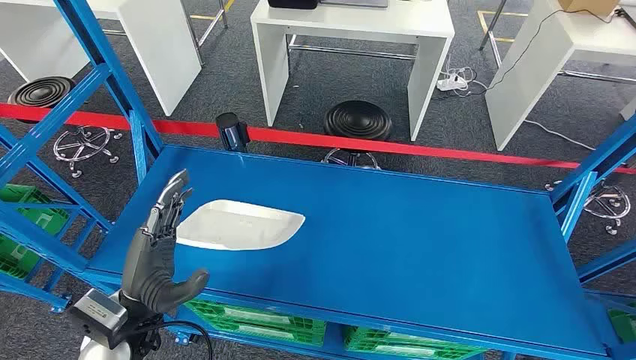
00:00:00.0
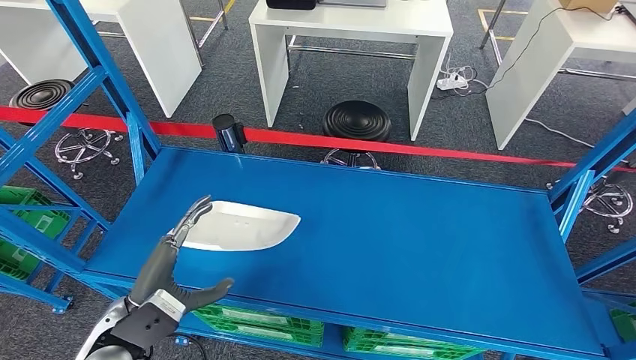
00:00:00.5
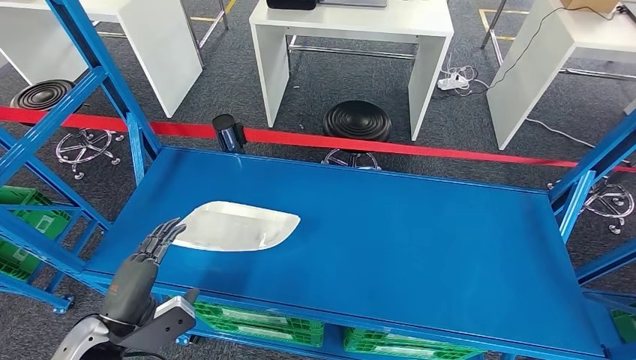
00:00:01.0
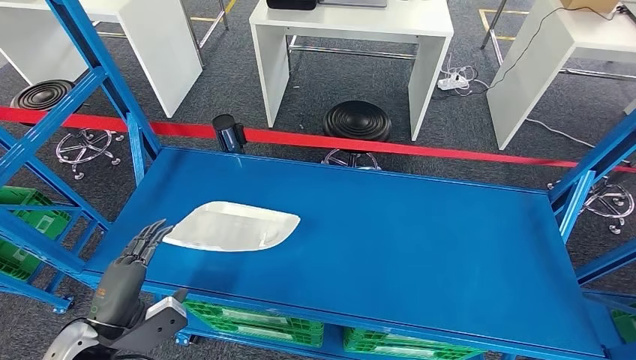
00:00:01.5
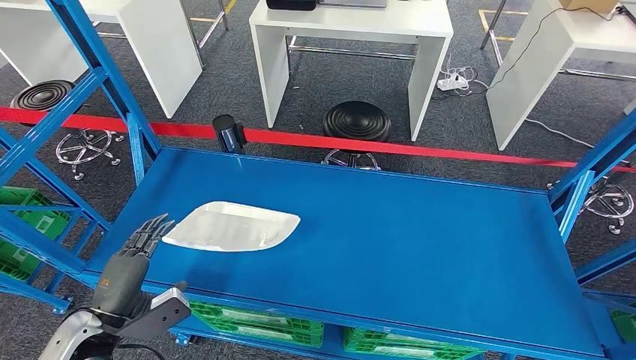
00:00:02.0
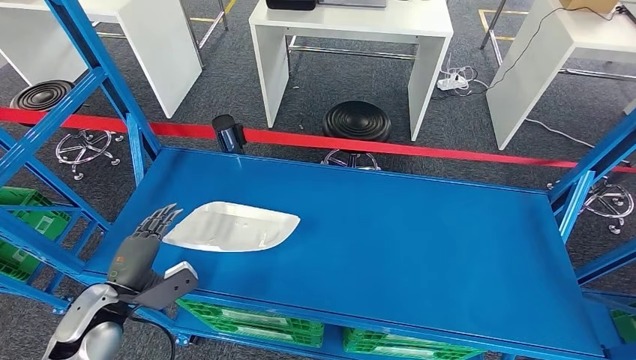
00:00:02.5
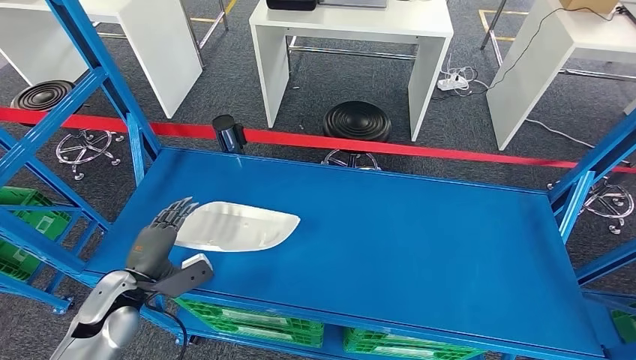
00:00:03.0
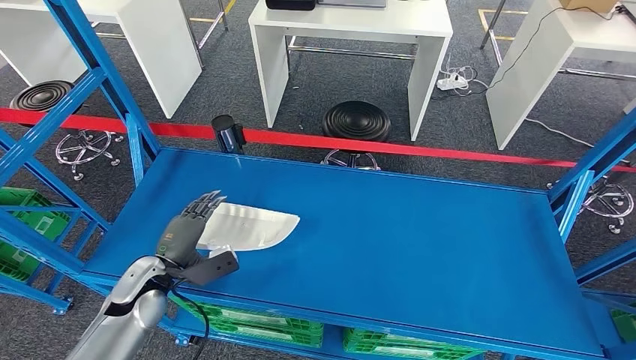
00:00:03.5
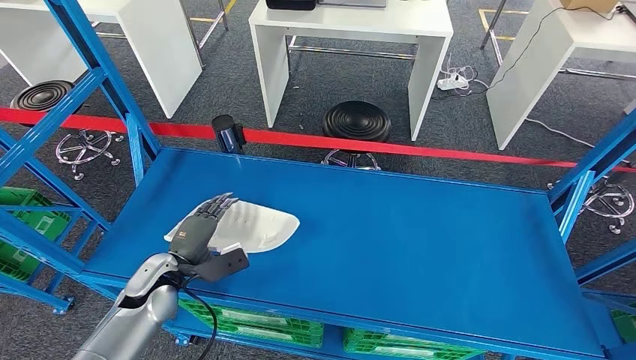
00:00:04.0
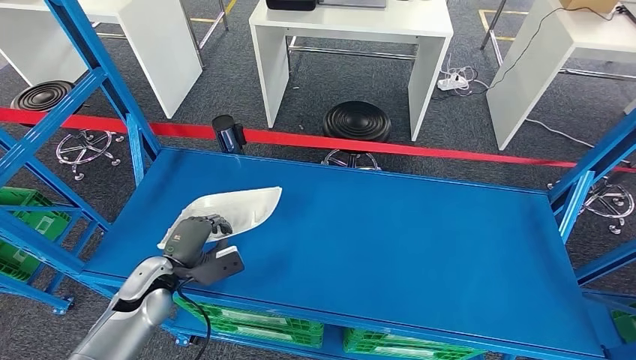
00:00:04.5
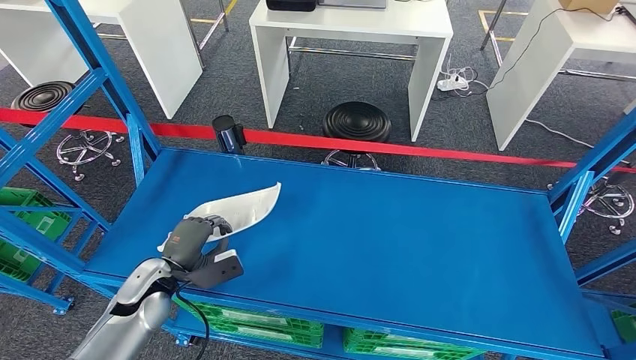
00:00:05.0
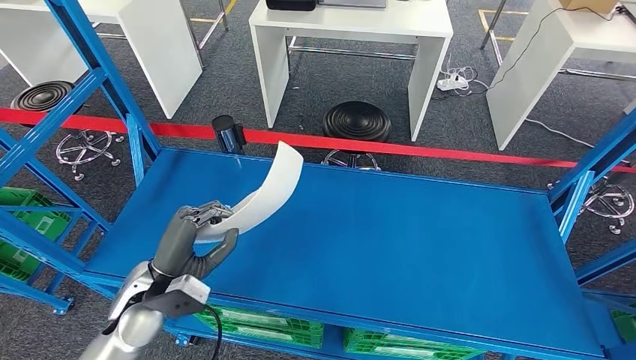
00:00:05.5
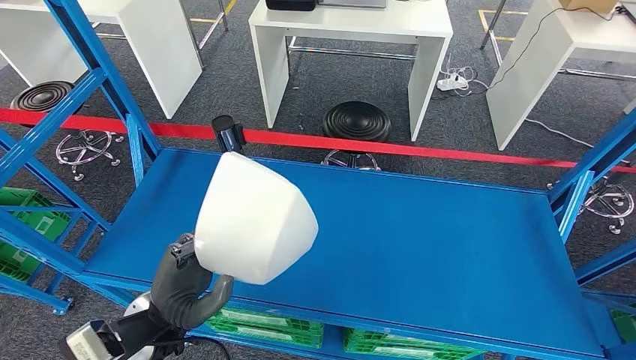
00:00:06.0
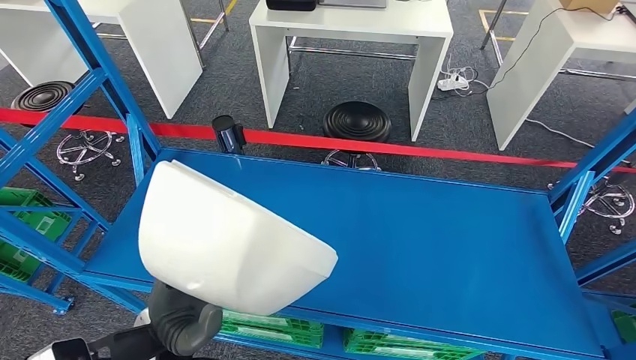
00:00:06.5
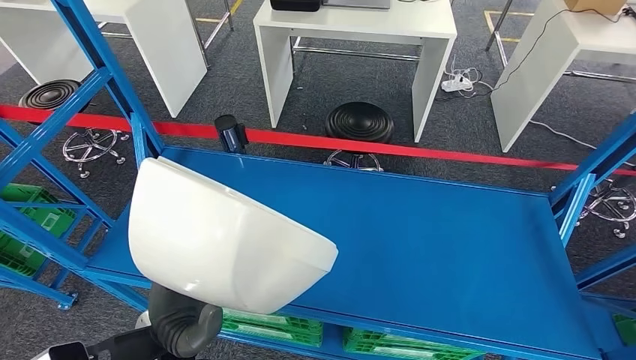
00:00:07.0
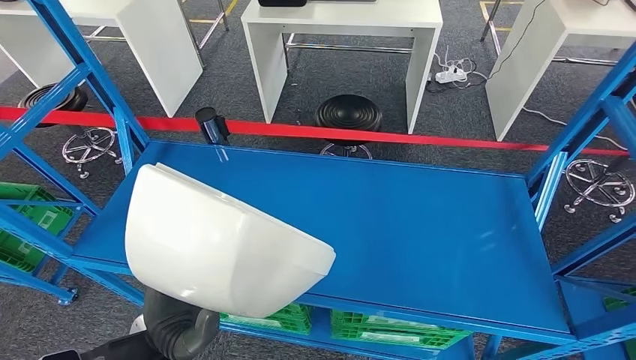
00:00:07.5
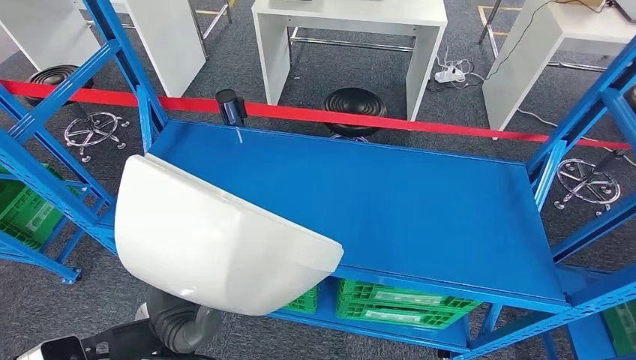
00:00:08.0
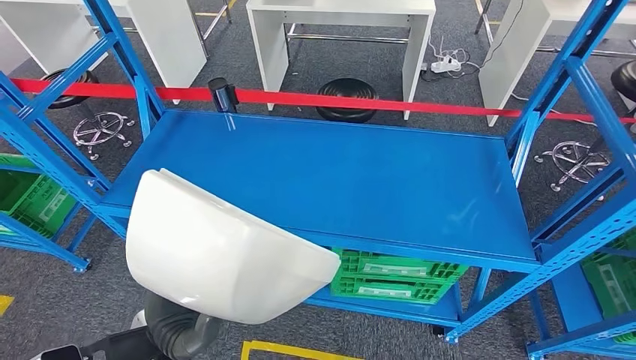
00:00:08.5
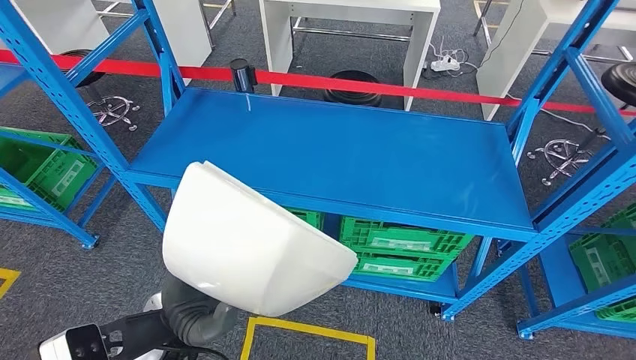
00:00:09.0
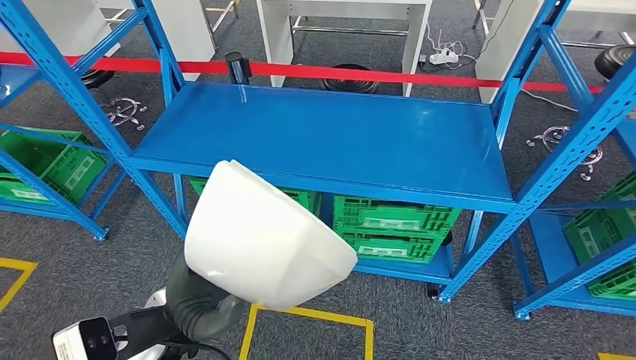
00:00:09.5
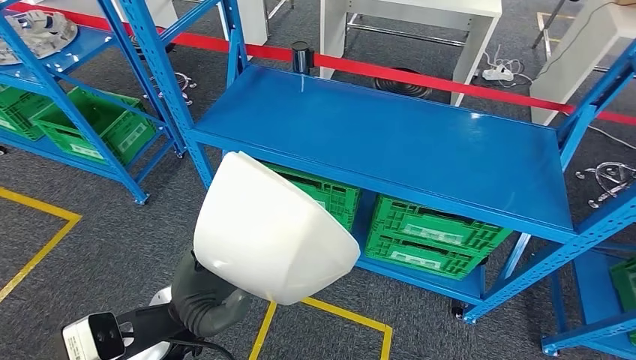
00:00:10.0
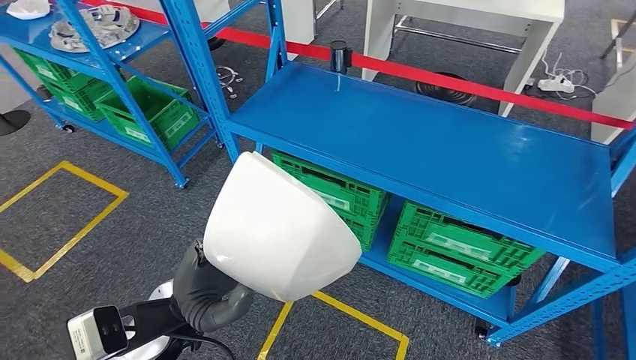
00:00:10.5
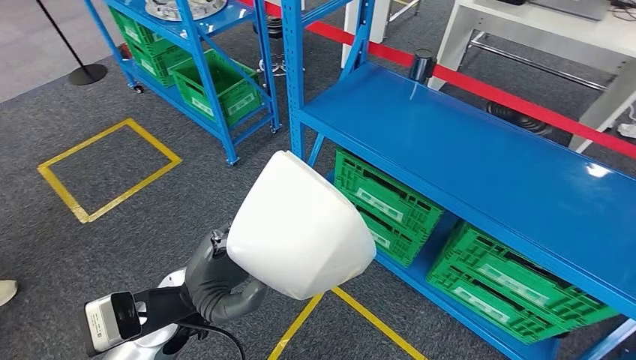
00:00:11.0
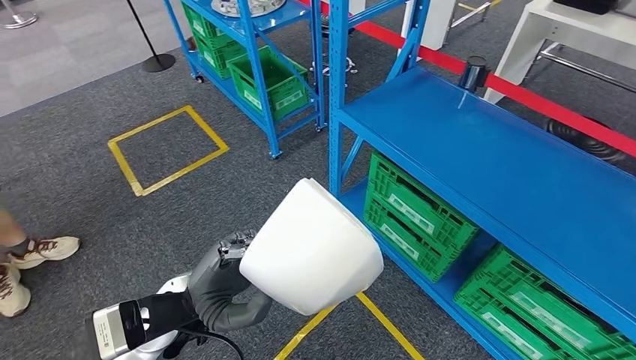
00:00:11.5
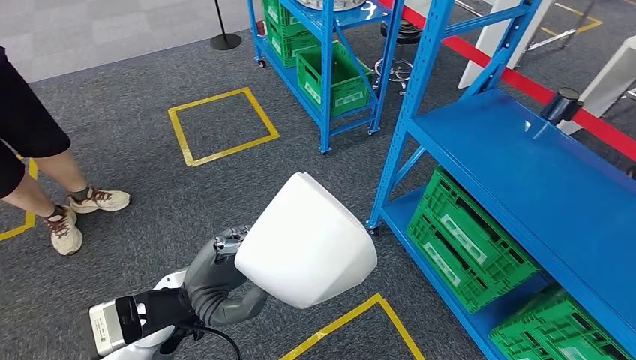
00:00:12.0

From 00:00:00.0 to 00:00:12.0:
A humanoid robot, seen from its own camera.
Step, from 00:00:00.0 to 00:00:06.5: Take small components from the rack.
From 00:00:02.0 to 00:00:04.0: The left hand is displaced forward and to the right by about 15 cm.
From 00:00:04.0 to 00:00:06.0: The left hand goes some 15 cm upward, backward and to the right.

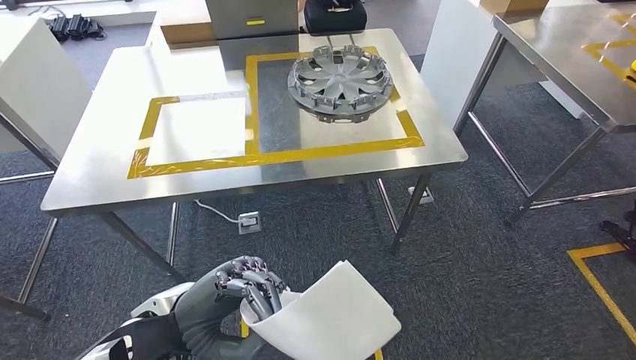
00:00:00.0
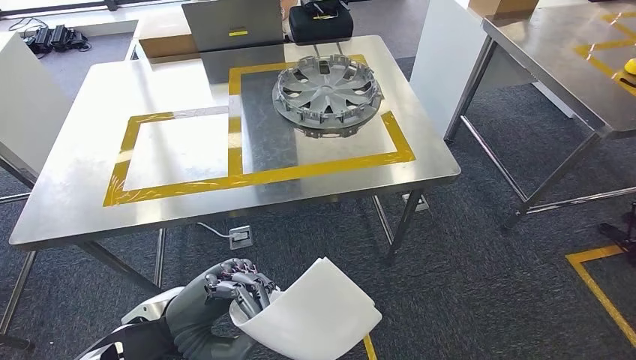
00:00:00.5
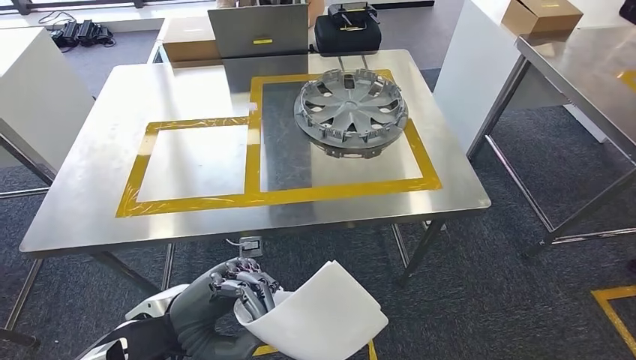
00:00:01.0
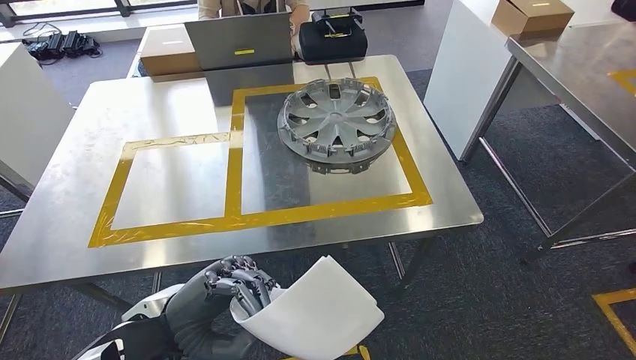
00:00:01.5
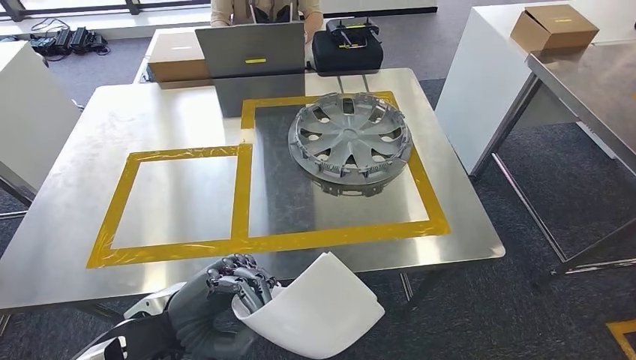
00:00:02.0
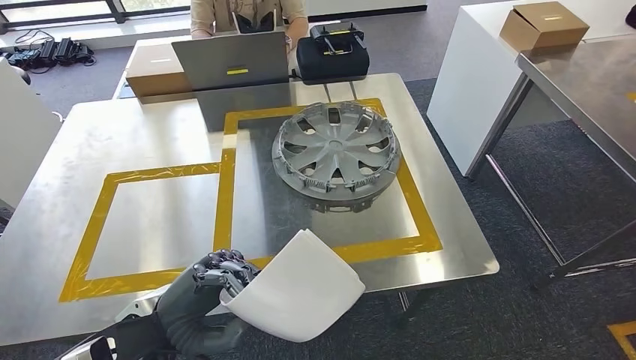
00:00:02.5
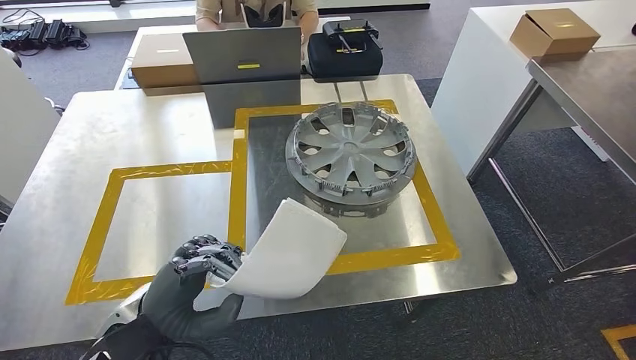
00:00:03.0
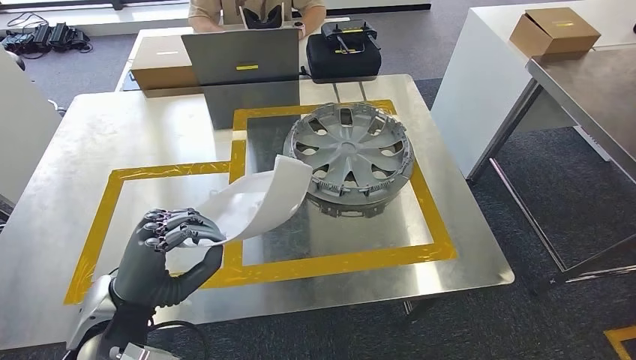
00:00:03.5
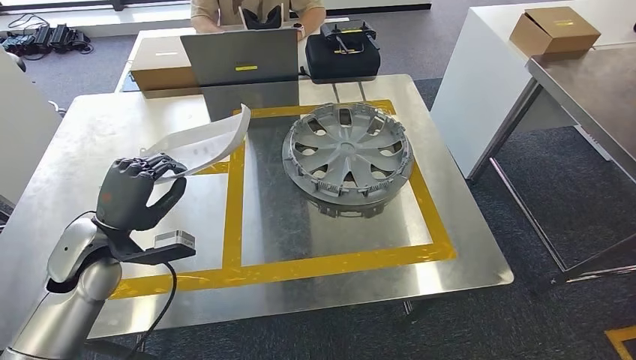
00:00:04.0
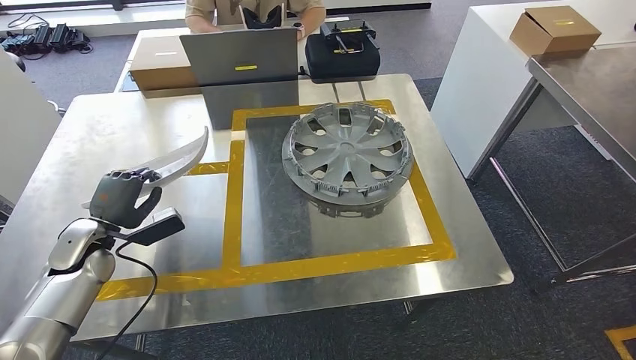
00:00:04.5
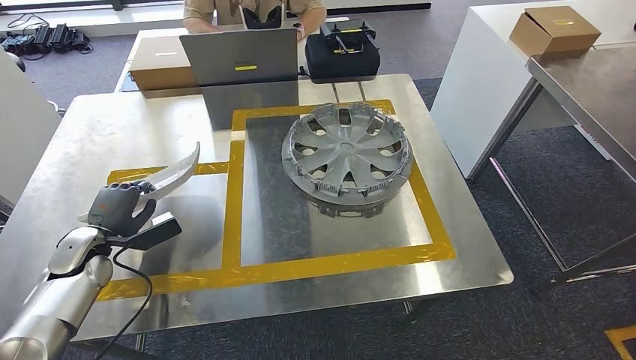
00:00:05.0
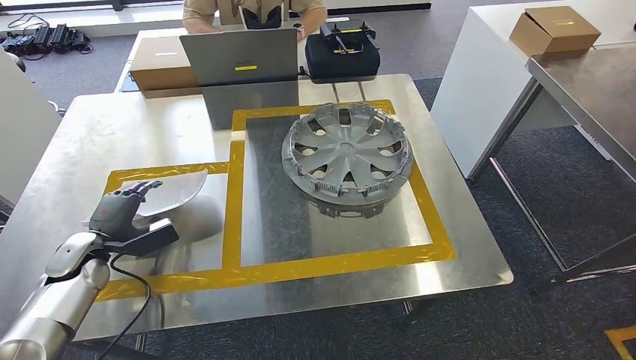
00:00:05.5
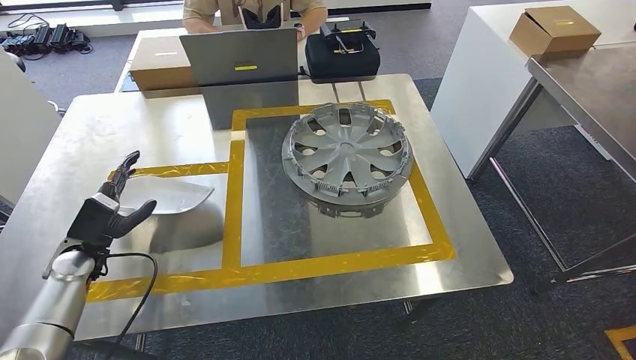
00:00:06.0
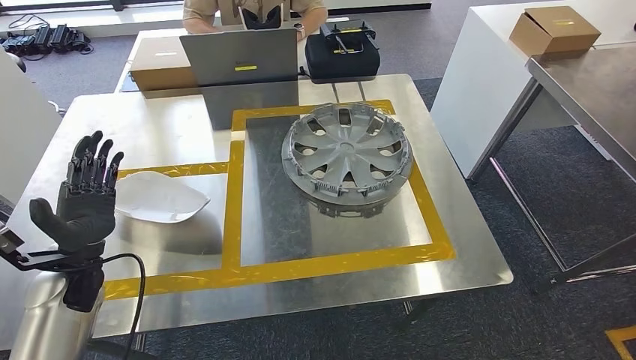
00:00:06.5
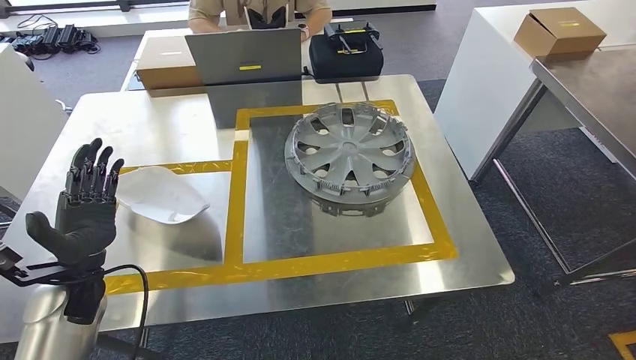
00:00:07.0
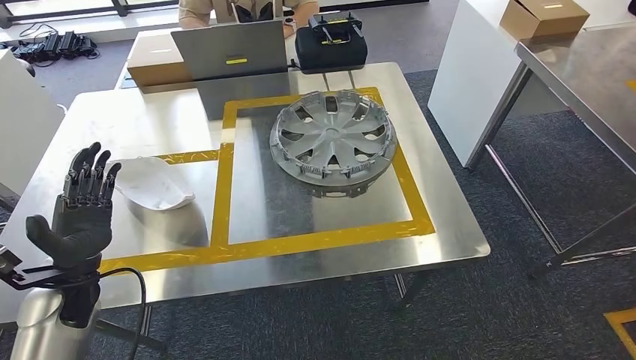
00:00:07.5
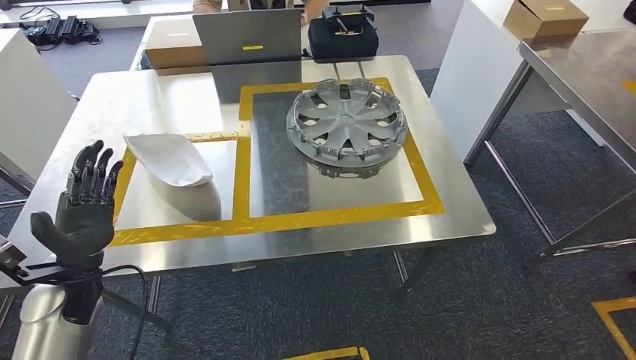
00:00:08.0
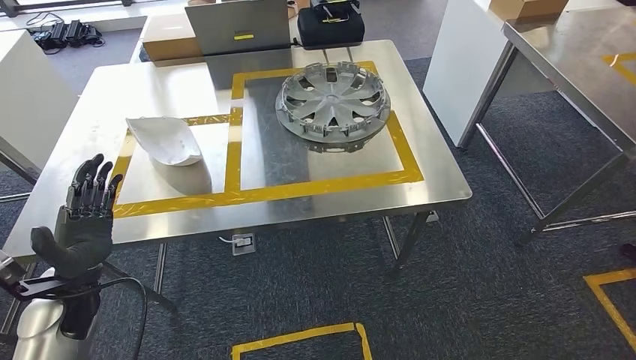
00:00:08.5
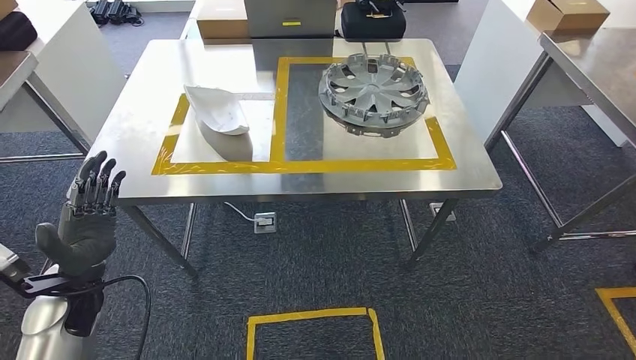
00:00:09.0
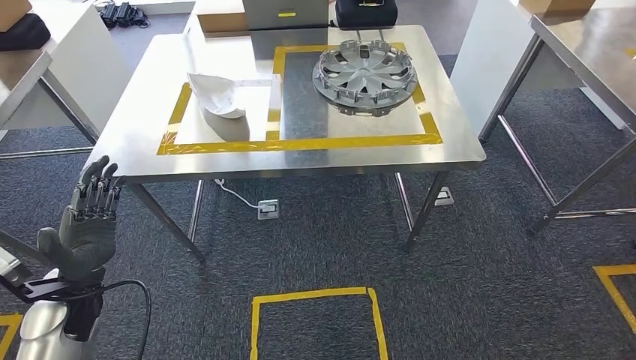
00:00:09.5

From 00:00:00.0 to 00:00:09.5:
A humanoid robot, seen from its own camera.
Step, from 00:00:00.0 to 00:00:02.5: Move the small parts to the workbench.
Step, from 00:00:03.0 to 00:00:07.0: Insert the small parts into the corresponding holes on the workbench.
From 00:00:04.0 to 00:00:05.5: The left hand moves downward and to the left, some 15 cm.
